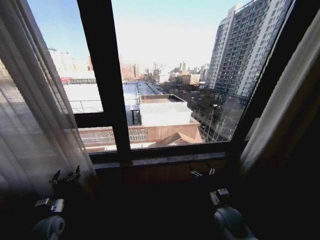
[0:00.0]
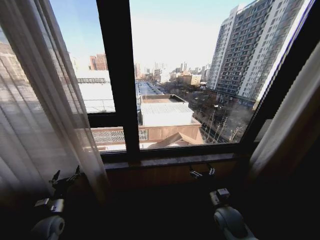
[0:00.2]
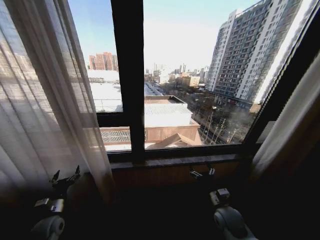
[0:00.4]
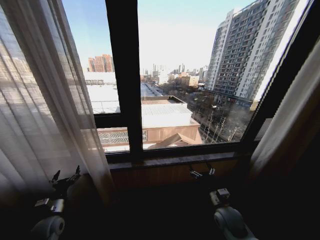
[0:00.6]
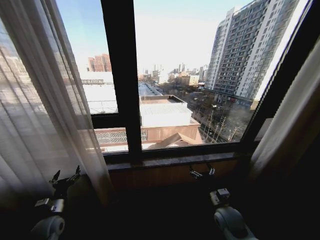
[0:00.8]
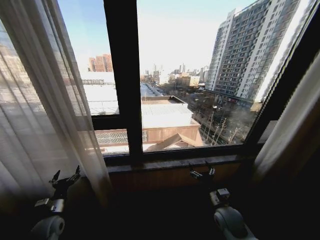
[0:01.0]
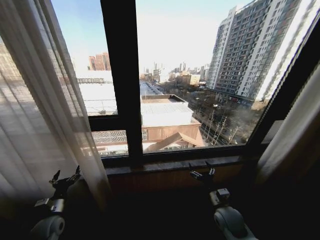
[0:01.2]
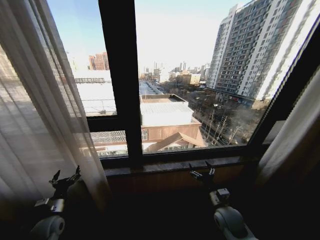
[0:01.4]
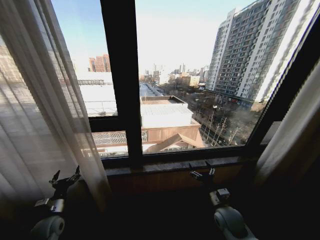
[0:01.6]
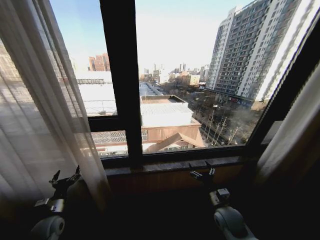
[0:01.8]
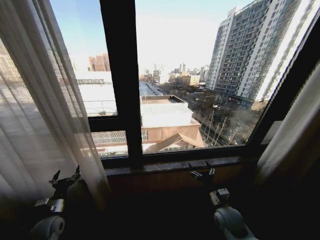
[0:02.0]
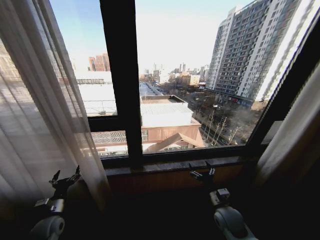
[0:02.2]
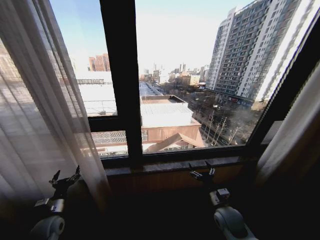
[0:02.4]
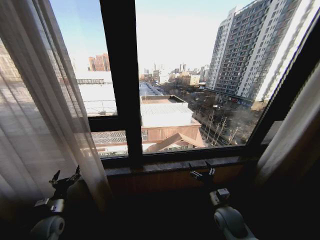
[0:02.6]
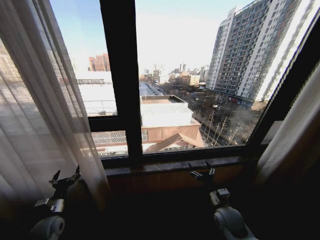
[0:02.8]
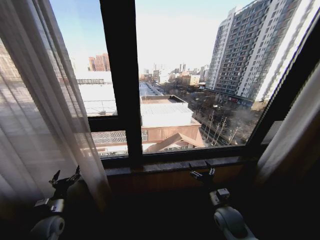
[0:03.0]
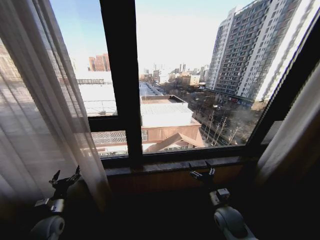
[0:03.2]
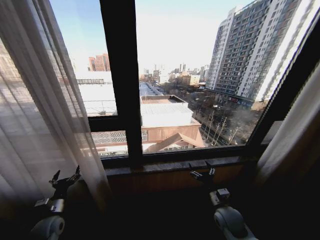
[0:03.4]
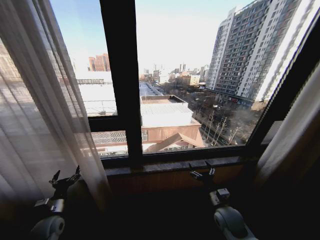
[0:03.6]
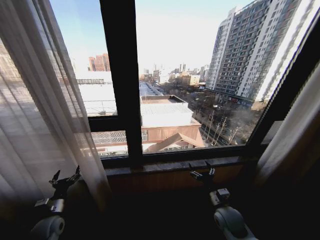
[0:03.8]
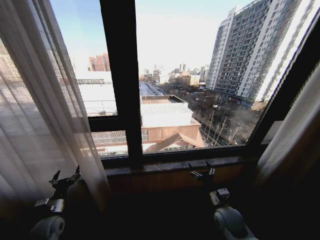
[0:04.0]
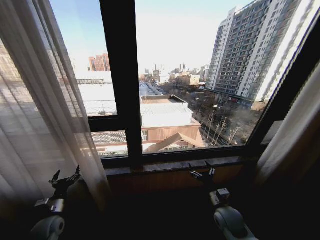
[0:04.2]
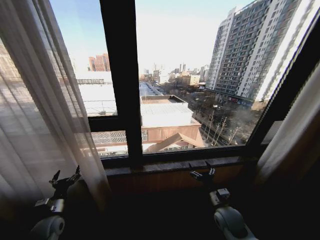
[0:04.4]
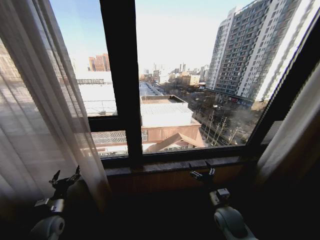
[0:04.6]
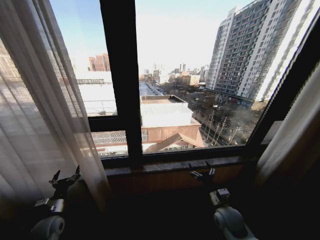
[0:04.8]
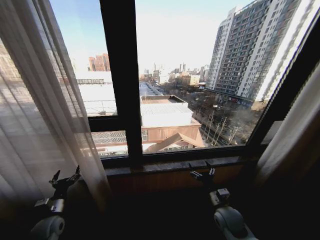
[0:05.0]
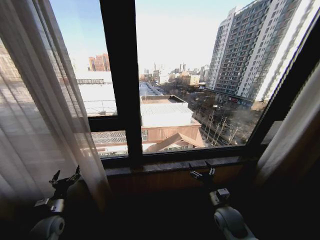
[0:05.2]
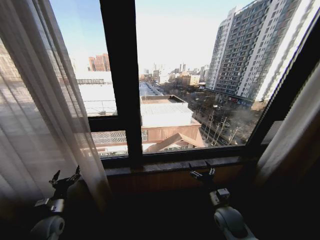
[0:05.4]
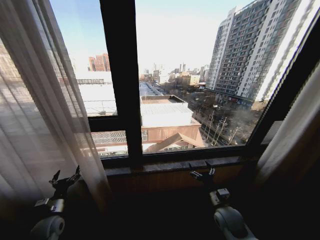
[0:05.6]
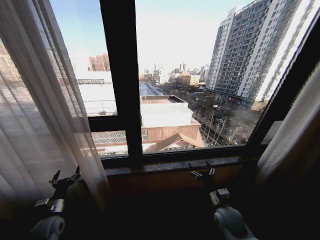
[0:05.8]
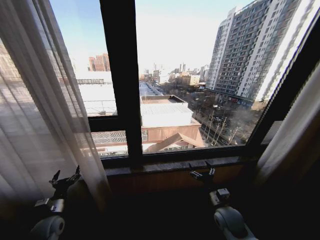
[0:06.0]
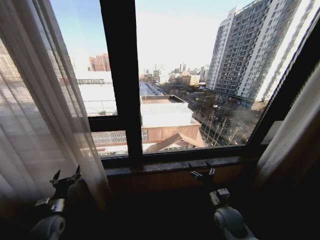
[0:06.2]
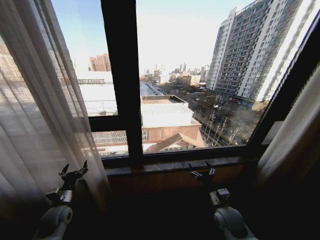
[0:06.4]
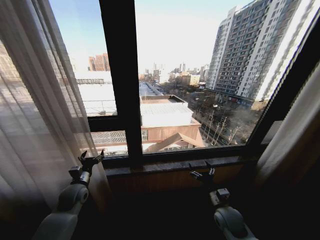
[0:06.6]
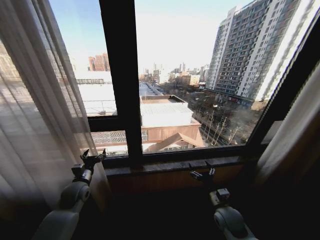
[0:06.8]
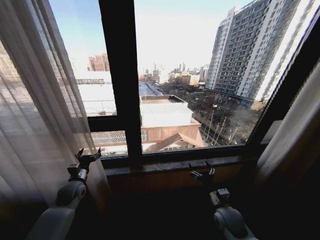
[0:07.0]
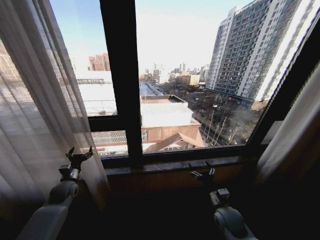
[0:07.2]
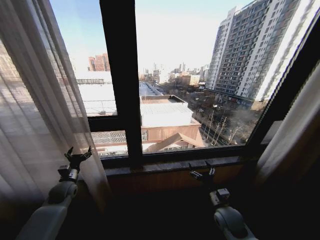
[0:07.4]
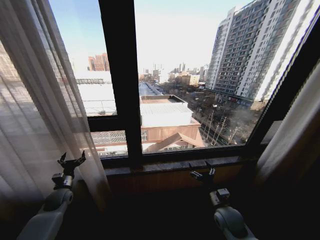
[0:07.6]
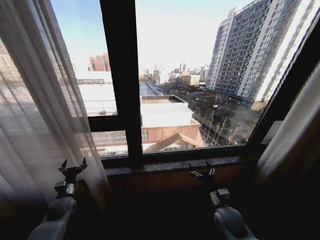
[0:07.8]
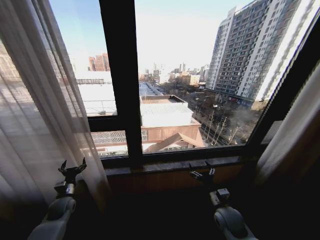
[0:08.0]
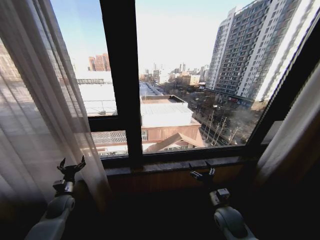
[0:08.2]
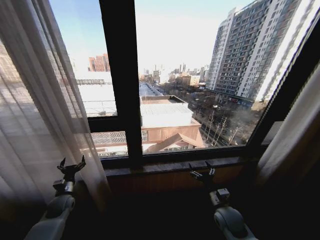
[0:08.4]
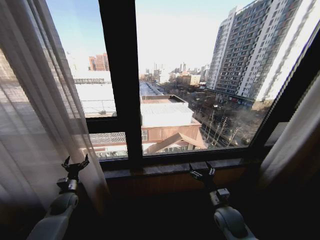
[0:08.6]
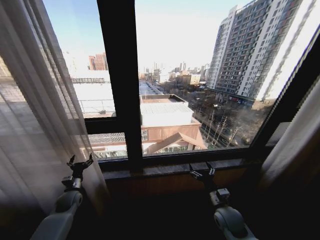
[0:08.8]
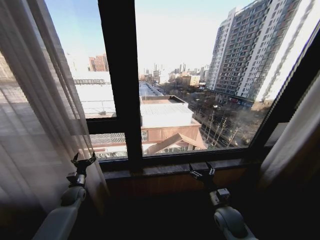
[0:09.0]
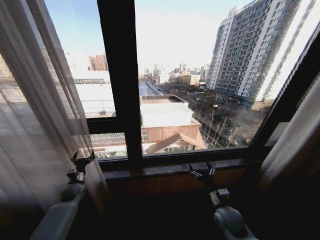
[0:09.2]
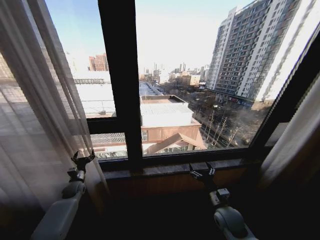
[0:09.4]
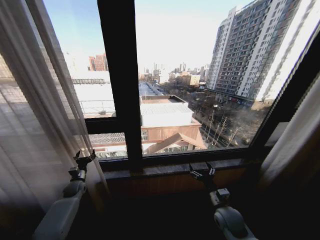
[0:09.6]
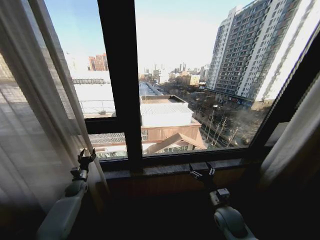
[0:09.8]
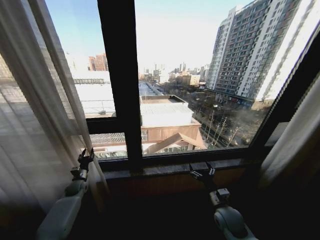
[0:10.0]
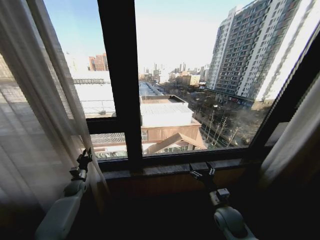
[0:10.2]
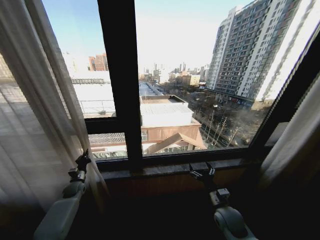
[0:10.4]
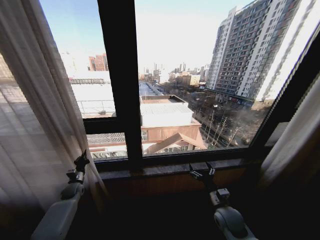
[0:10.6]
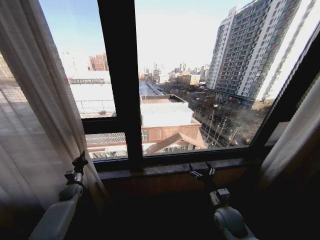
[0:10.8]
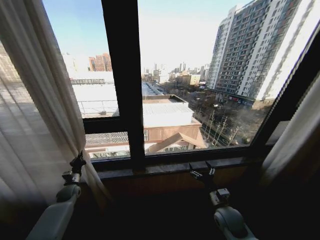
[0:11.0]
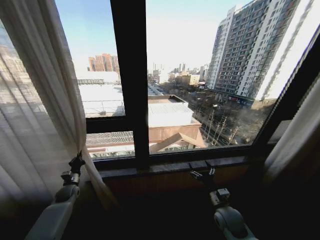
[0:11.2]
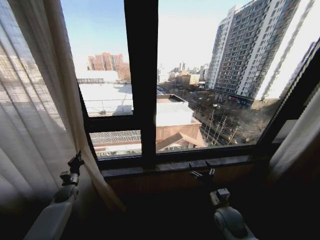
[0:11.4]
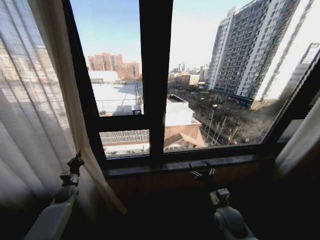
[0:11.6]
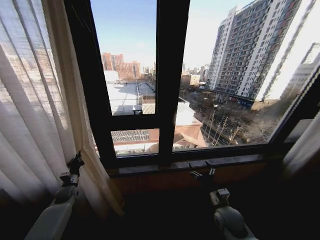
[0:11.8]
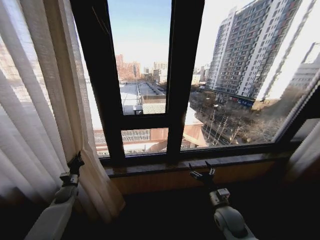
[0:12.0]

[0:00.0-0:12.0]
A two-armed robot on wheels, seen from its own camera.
Task of the whole recording: Open the curtains by pulling them apart, changing their state from closed to fully open.
0:01.6 to 0:06.0: Neither gripper changes place.
0:06.0 to 0:07.6: The left gripper is displaced forward by some 10 cm.
0:07.6 to 0:09.0: The left gripper shifts by approximately 5 cm.
0:09.0 to 0:10.4: The left gripper moves roughly 5 cm, and closes up.

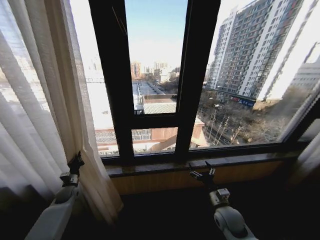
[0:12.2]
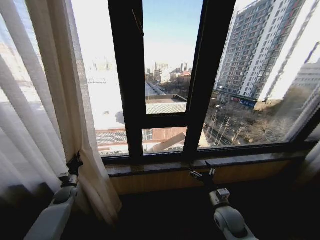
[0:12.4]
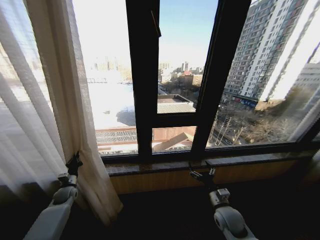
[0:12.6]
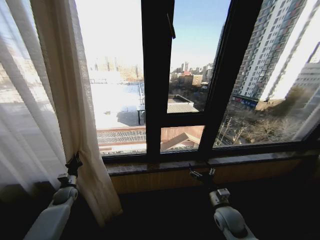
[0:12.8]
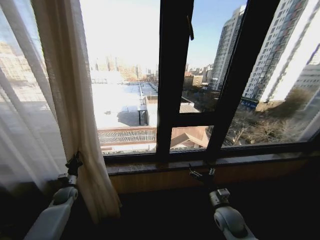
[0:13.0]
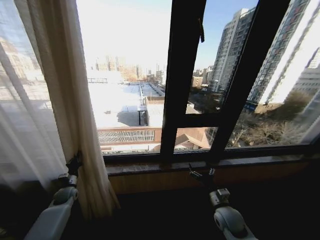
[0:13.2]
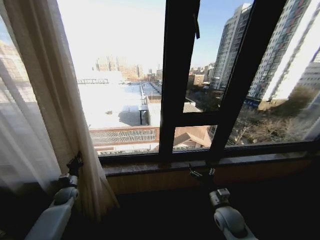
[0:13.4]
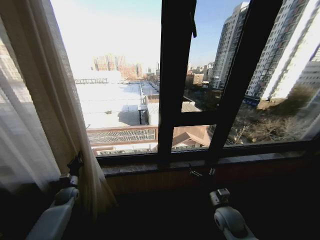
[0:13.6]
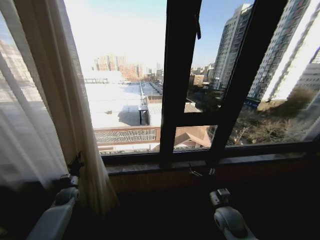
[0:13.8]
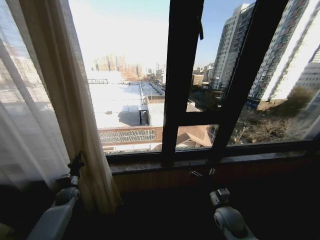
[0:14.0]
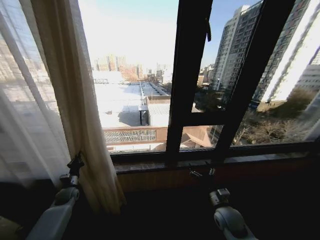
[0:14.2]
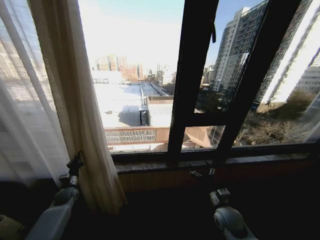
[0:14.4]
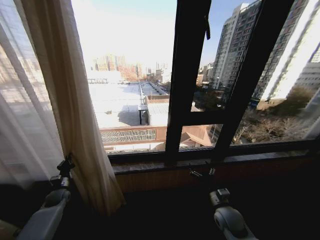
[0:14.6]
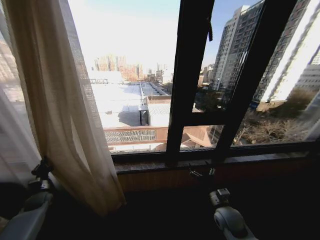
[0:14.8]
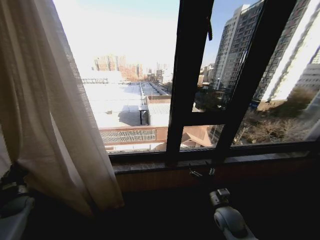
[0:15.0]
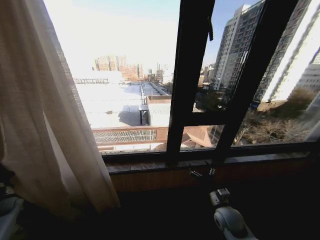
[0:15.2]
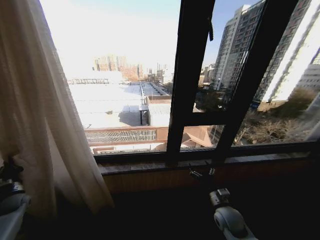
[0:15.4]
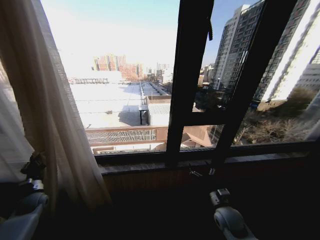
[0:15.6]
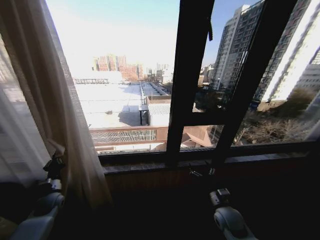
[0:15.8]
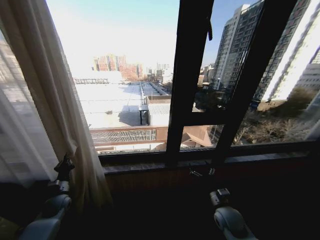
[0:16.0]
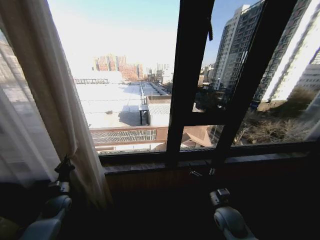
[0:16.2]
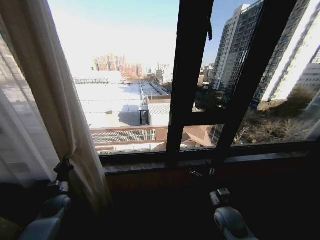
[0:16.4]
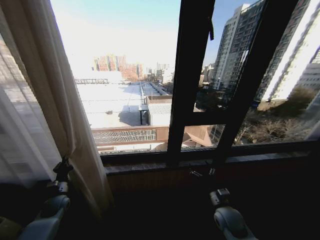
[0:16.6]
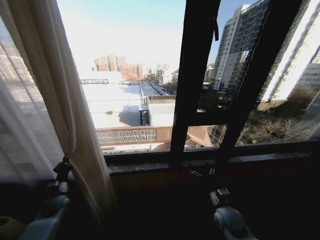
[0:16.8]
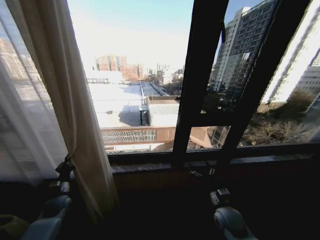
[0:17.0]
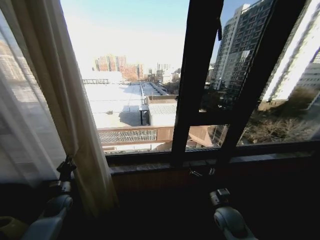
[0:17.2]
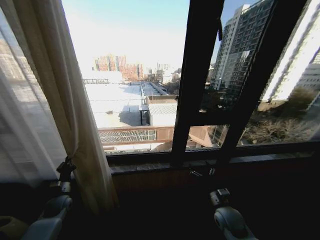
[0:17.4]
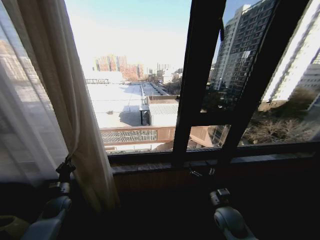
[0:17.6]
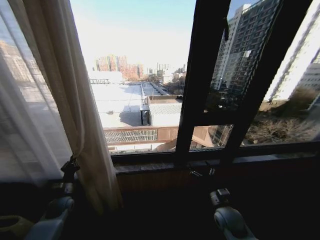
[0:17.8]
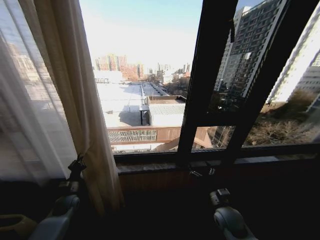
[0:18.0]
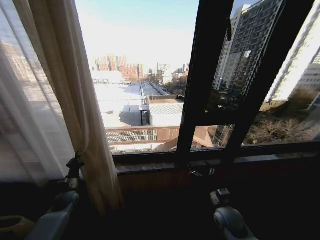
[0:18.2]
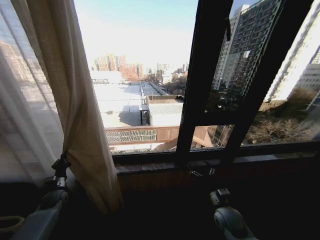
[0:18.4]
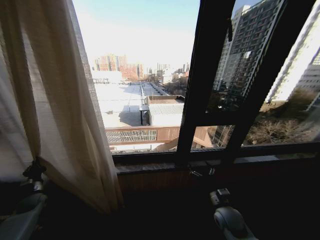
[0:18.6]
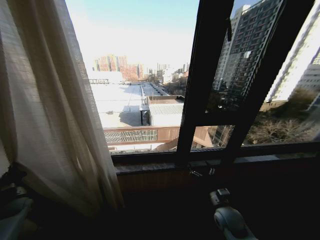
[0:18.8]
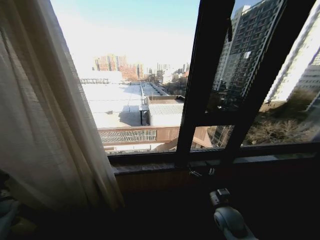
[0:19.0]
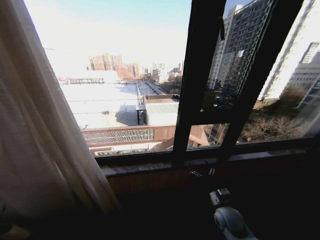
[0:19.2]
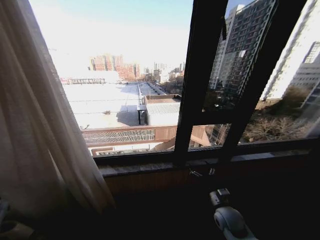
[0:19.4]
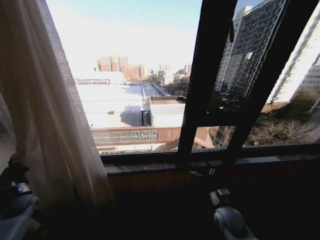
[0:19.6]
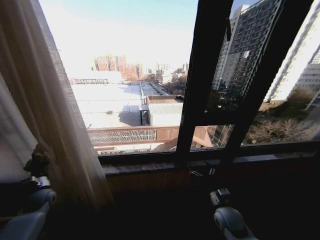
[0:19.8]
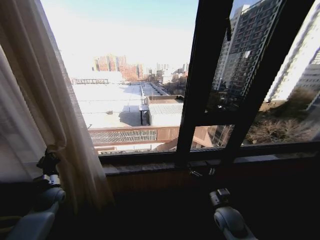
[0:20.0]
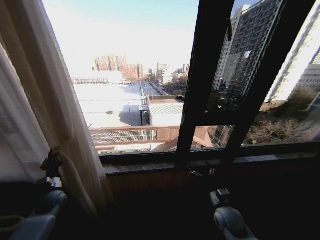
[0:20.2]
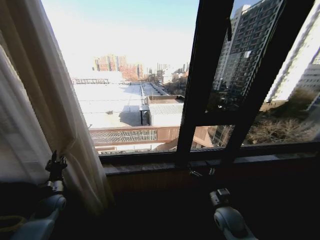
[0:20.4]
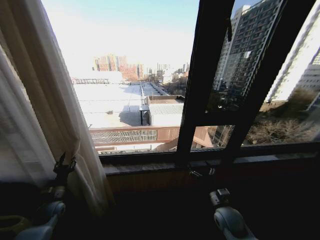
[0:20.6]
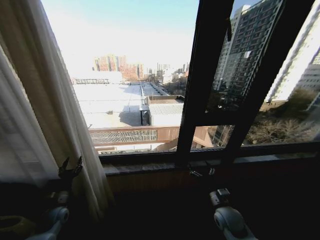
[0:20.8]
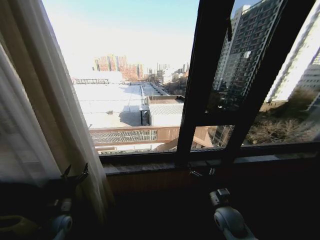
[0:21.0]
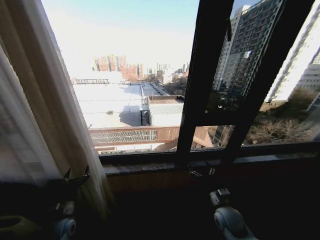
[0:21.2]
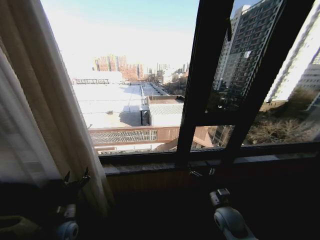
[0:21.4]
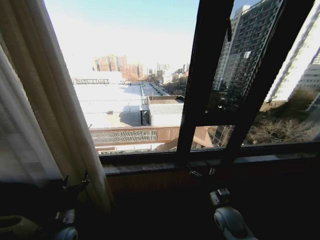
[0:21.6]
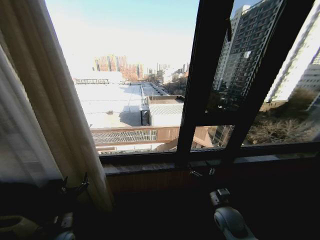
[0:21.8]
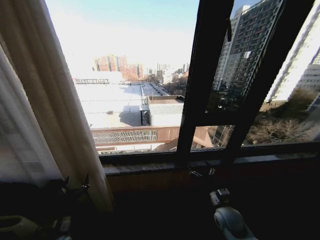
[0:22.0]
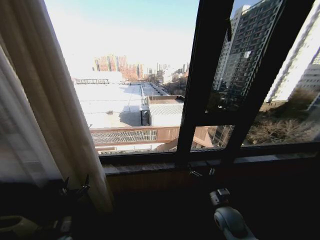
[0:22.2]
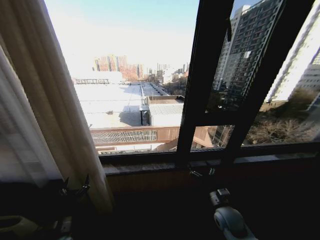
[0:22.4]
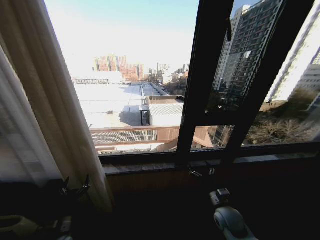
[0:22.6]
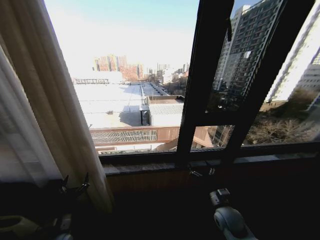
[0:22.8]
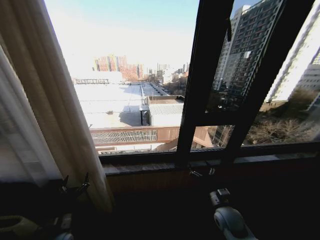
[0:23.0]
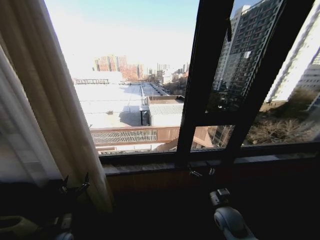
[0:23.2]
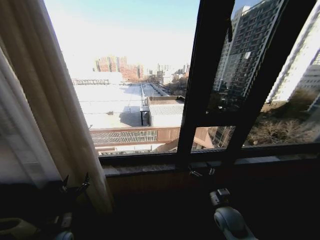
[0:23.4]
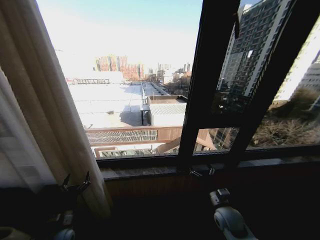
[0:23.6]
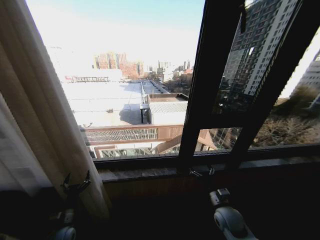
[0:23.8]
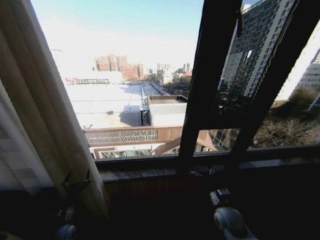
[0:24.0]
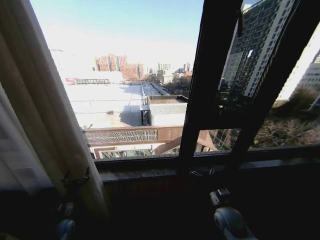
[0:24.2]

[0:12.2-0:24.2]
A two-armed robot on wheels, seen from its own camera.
Task of the whole recording: Open the curtains by pulling them apart, changing their state from closed to fully open.
0:13.8 to 0:15.2: The left gripper shifts roughly 20 cm to the left.
0:15.2 to 0:16.6: The left gripper moves to the right, roughly 20 cm.
0:18.2 to 0:19.8: The left gripper travels upward by some 5 cm, and travels to the left and back again, some 25 cm each way.
0:19.8 to 0:21.2: The left gripper is displaced to the right, backward and downward by approximately 15 cm, and opens up.
0:21.2 to 0:22.6: The left gripper moves backward, some 5 cm.
0:22.6 to 0:24.2: The left gripper goes approximately 5 cm forward.
